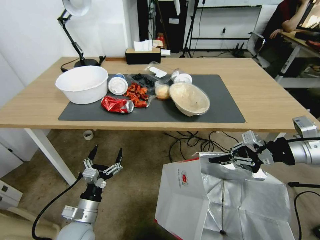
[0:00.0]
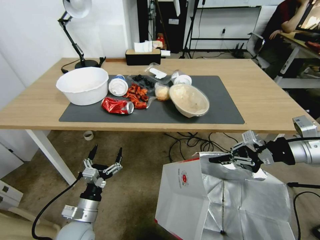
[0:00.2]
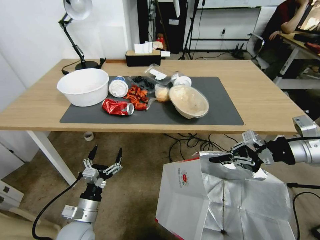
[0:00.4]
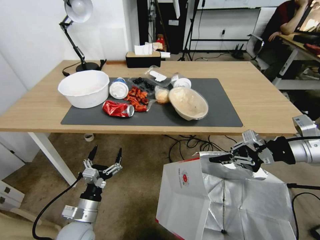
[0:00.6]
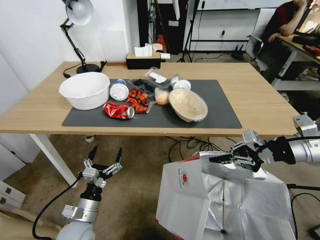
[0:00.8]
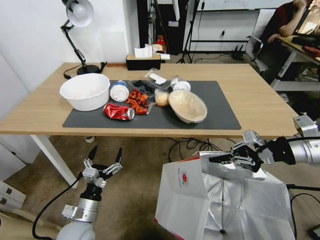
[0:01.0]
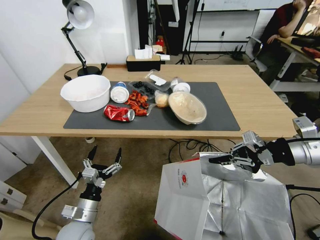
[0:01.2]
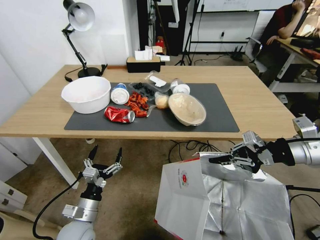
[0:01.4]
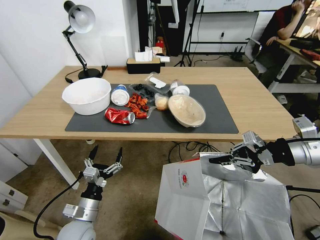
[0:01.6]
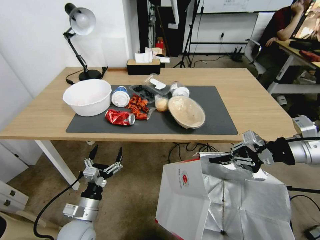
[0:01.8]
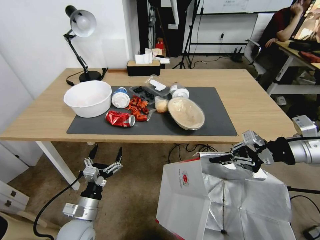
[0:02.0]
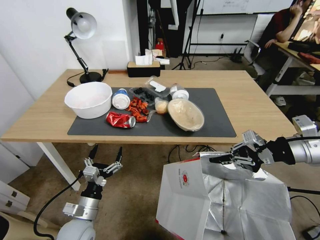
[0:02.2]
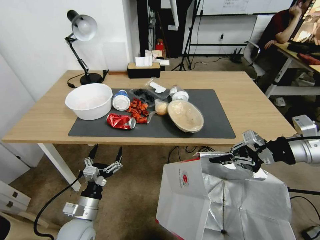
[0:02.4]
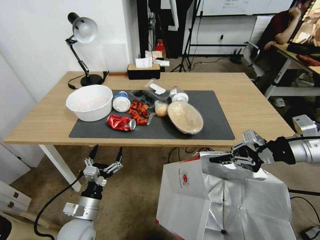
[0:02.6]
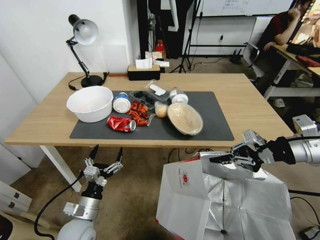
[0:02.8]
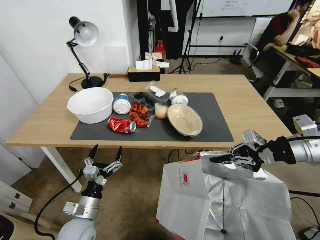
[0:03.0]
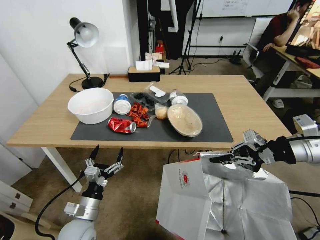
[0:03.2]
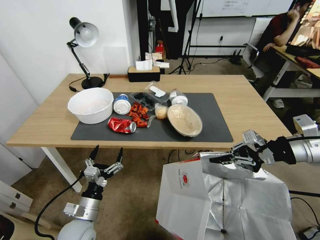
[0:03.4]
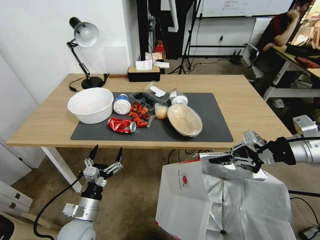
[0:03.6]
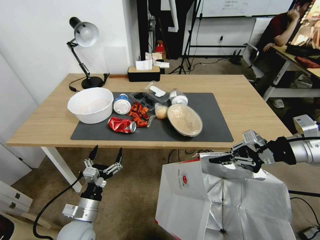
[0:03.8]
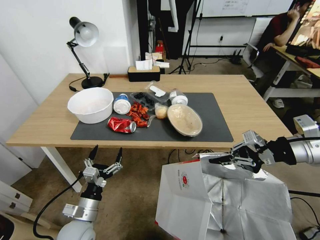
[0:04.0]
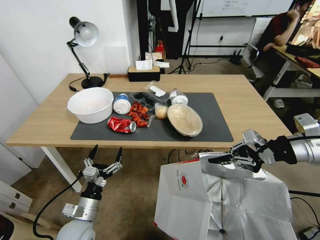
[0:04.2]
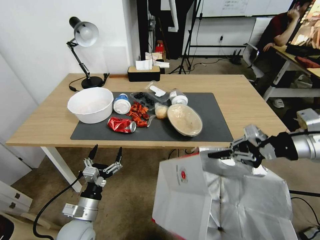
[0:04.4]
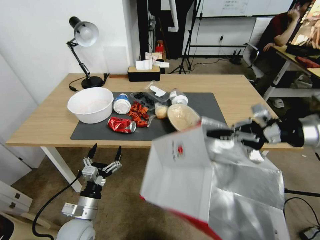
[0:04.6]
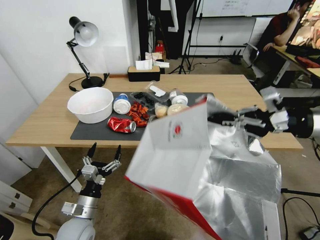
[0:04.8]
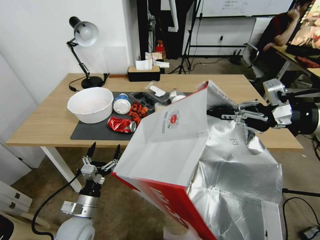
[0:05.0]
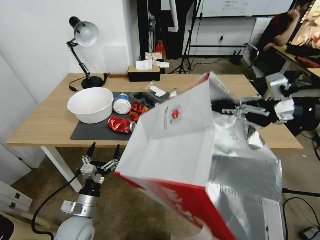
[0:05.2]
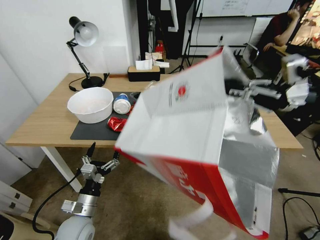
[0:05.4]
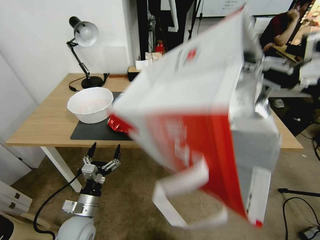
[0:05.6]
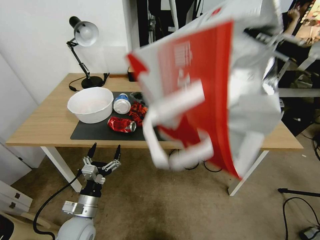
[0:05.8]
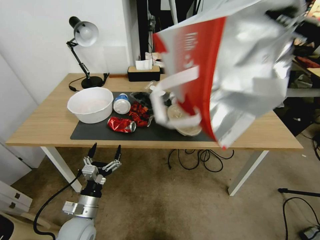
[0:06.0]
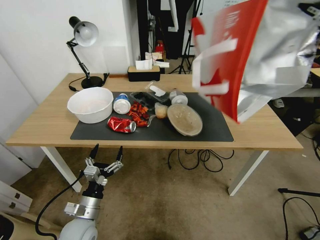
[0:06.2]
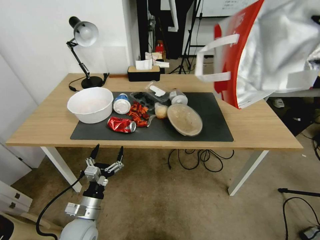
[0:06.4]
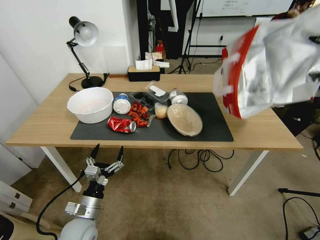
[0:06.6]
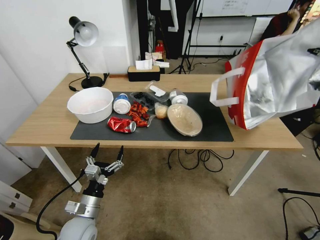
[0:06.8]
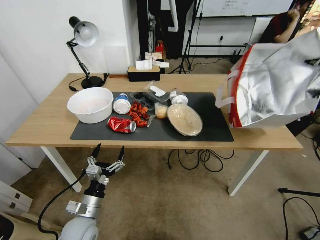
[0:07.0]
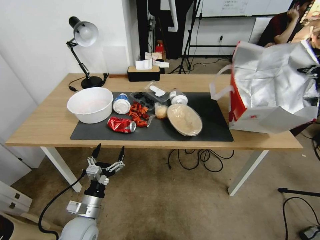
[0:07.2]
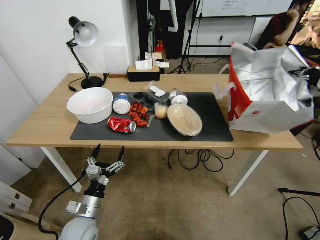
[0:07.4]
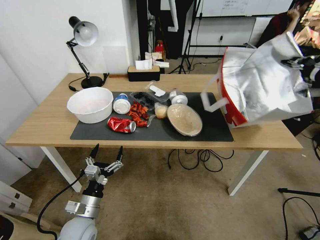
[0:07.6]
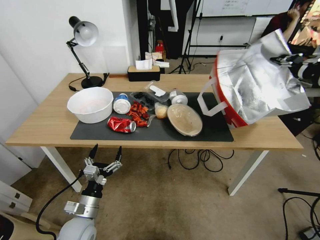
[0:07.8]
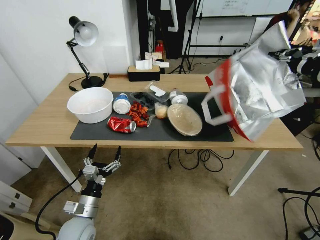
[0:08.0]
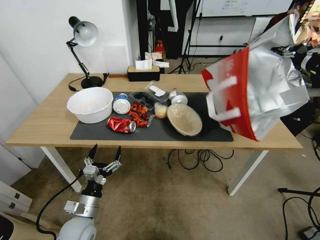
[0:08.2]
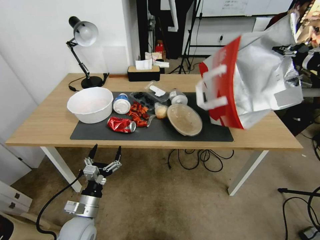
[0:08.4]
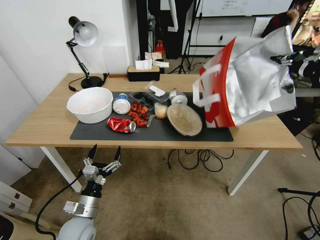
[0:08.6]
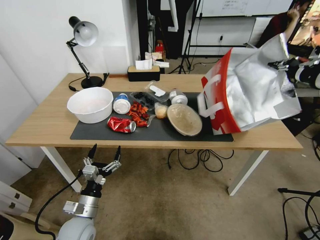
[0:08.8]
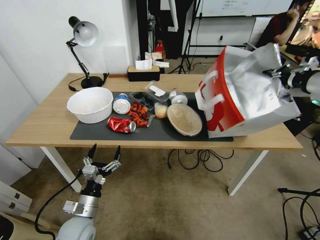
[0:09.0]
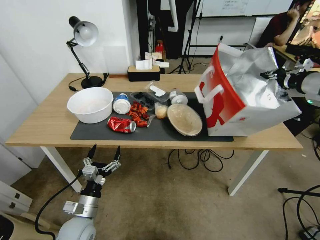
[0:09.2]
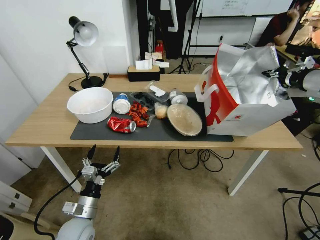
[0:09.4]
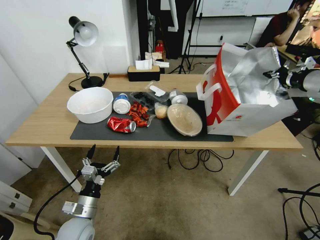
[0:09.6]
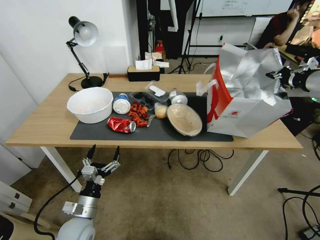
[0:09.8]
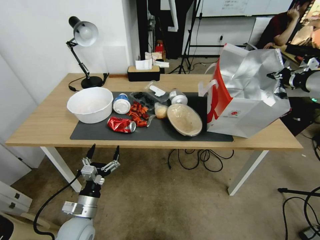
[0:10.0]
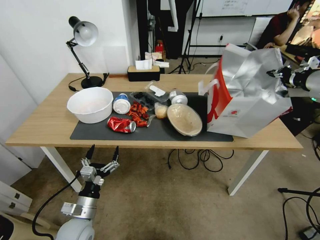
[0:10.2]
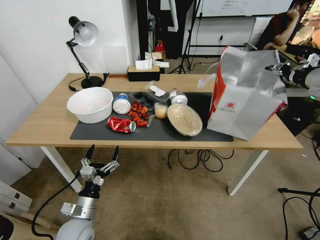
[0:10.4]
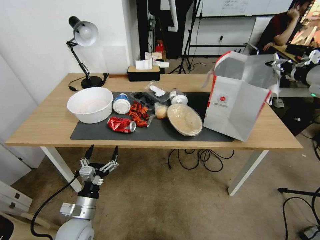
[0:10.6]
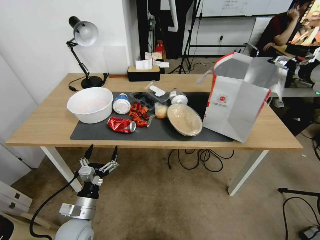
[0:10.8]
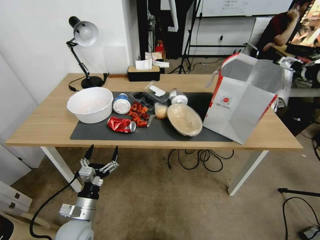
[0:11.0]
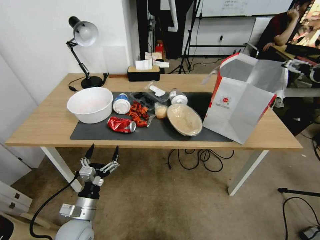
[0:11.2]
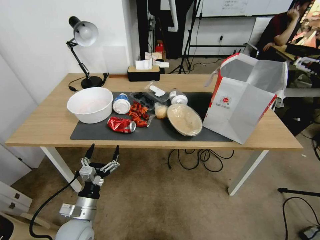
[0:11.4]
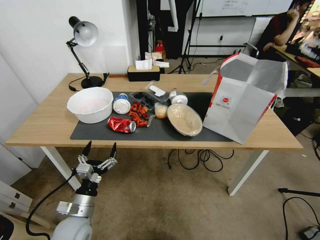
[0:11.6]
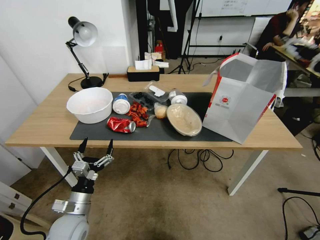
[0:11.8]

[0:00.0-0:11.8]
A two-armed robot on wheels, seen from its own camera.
Task of the whole recording: Pick up the food delivery bag from the floor and place it on the table.
0:03.0 to 0:04.4: The grippers move only a little.
0:04.4 to 0:06.0: The right gripper heads upward, covering about 15 cm.
0:06.0 to 0:07.4: The right gripper moves to the right and downward, roughly 10 cm.
0:07.4 to 0:08.8: The right gripper ends up roughly 5 cm from where it was.
0:08.8 to 0:10.4: The right gripper opens up.
0:10.4 to 0:11.8: The right gripper shifts some 10 cm backward and to the left, and opens.

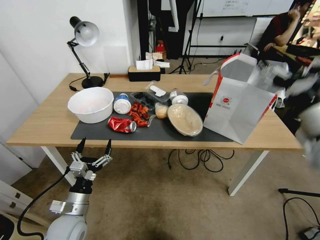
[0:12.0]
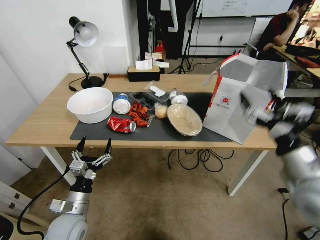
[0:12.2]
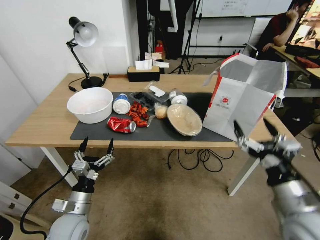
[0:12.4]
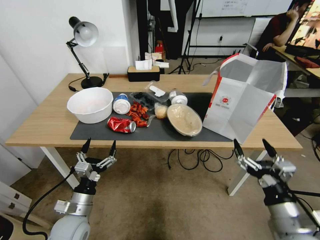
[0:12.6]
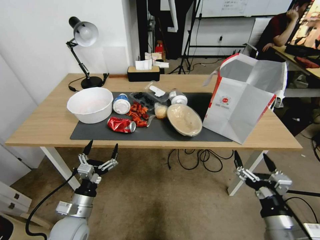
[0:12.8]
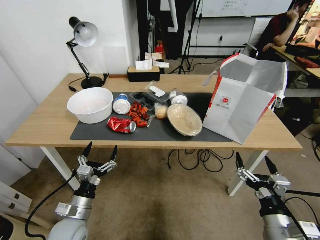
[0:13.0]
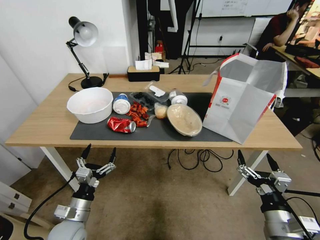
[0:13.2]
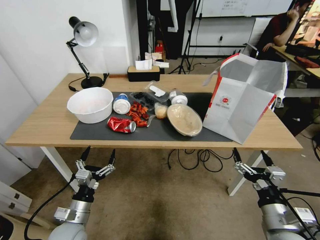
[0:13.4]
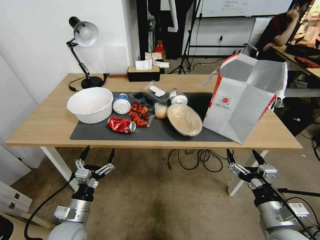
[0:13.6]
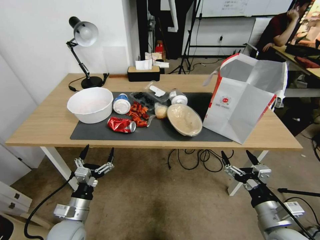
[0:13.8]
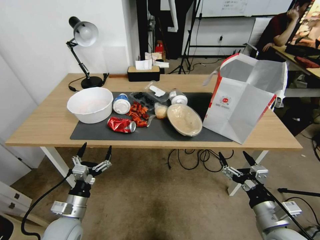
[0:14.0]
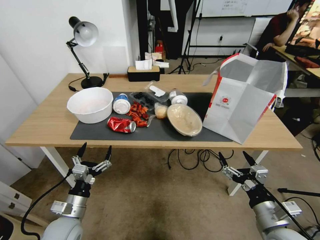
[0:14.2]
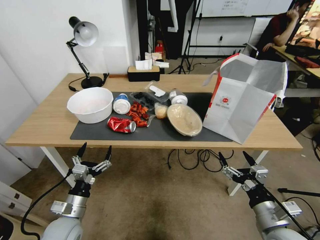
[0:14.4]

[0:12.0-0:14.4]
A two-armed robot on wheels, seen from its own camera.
Task of the whole recording: Pick up the food delivery bag from the floor and place it on the table.
0:12.0 to 0:13.2: The right gripper is displaced downward and backward by some 25 cm.
0:13.2 to 0:14.4: There are only small adjustments of the grippers.
